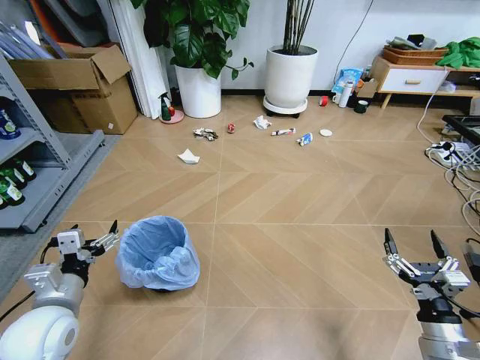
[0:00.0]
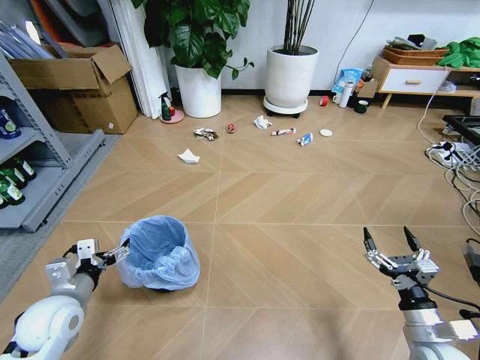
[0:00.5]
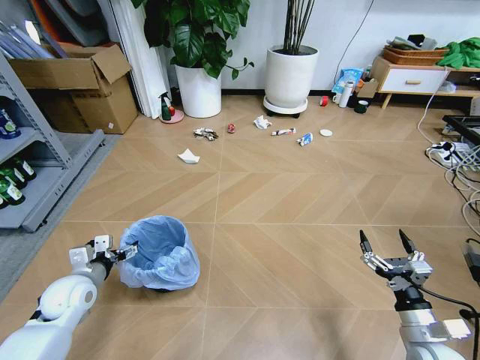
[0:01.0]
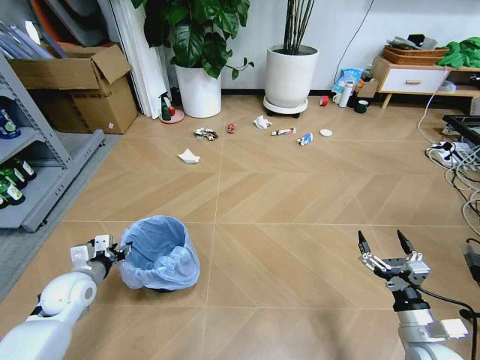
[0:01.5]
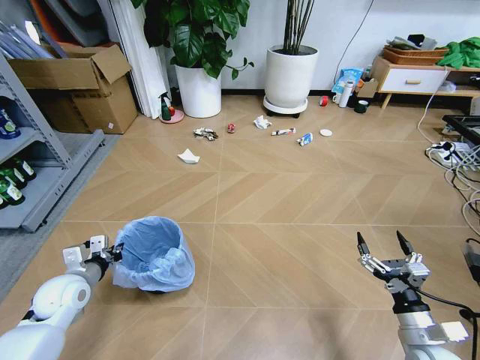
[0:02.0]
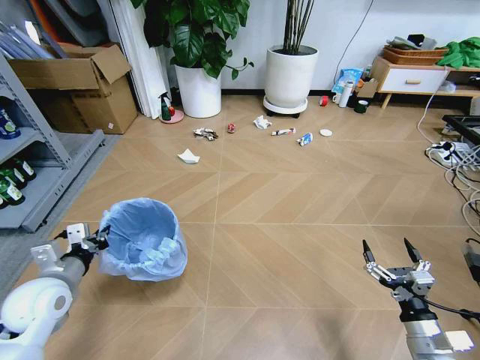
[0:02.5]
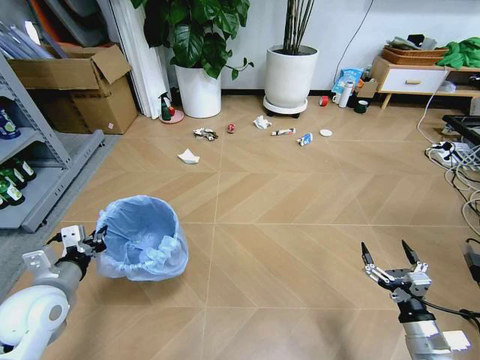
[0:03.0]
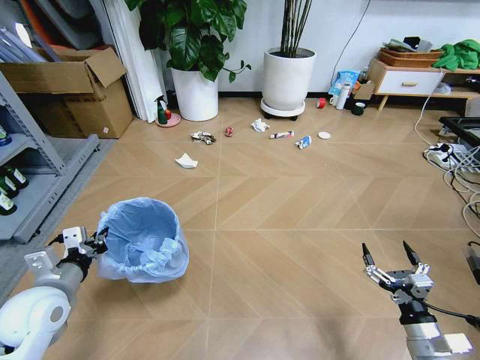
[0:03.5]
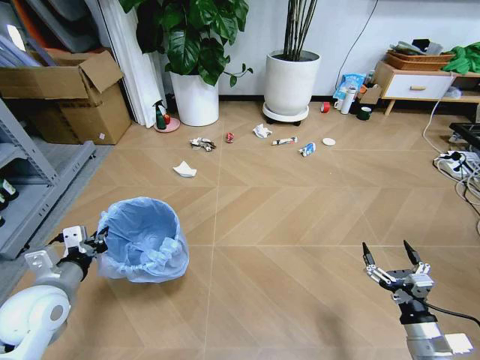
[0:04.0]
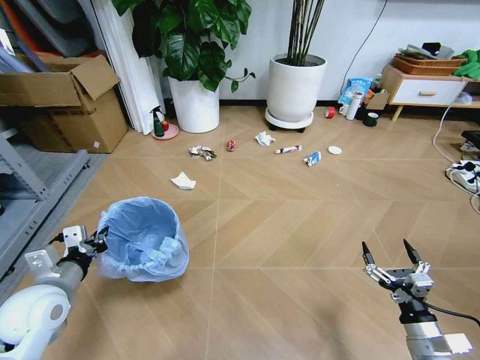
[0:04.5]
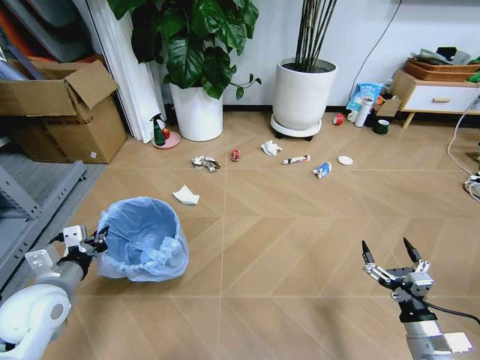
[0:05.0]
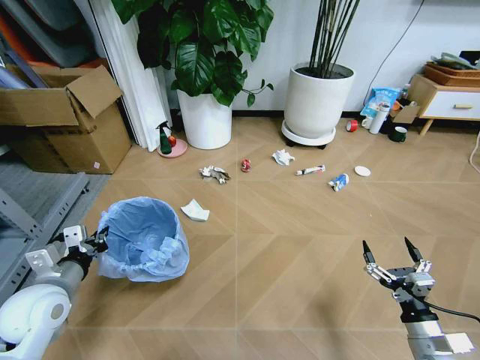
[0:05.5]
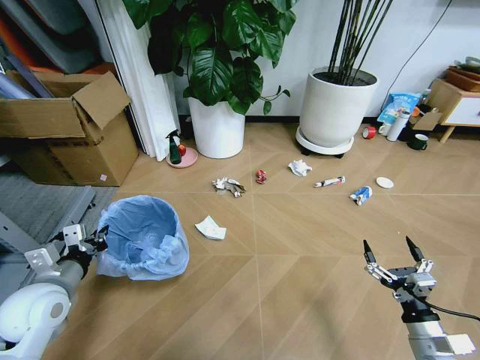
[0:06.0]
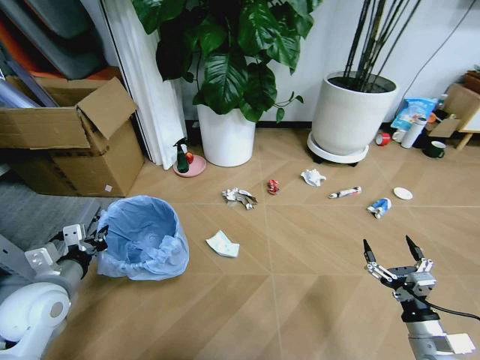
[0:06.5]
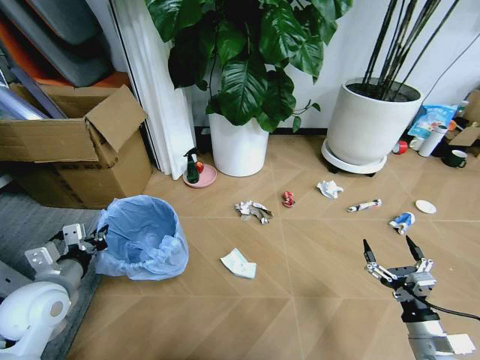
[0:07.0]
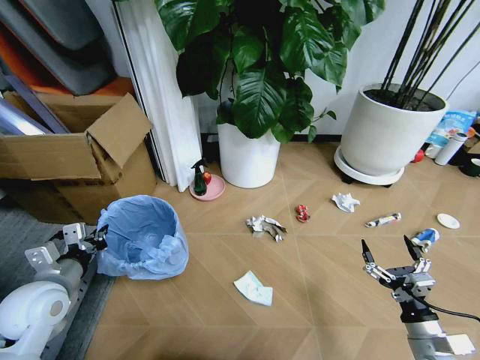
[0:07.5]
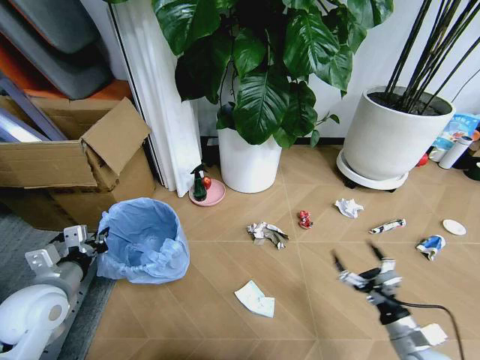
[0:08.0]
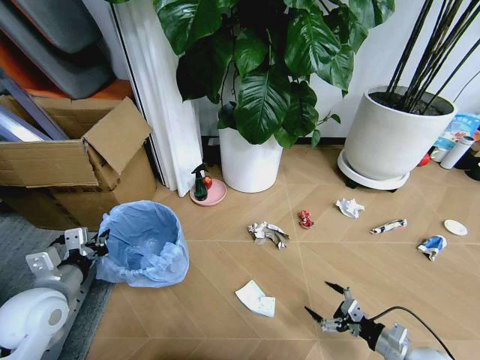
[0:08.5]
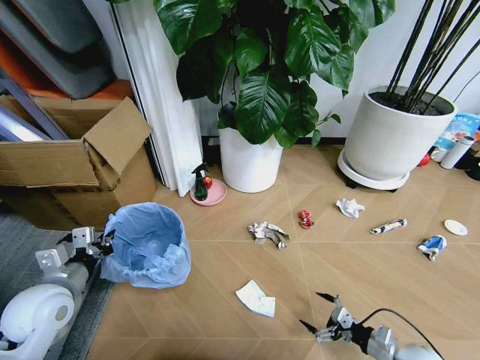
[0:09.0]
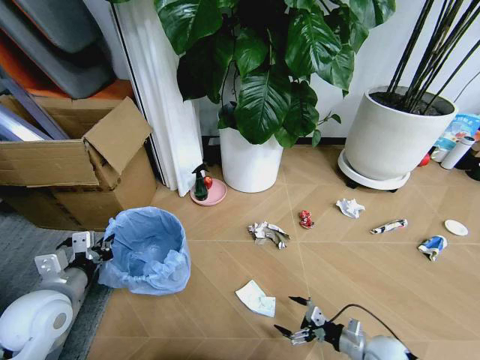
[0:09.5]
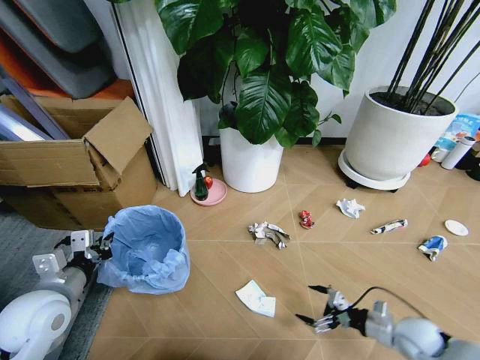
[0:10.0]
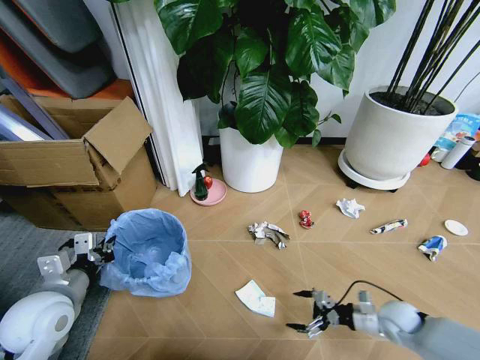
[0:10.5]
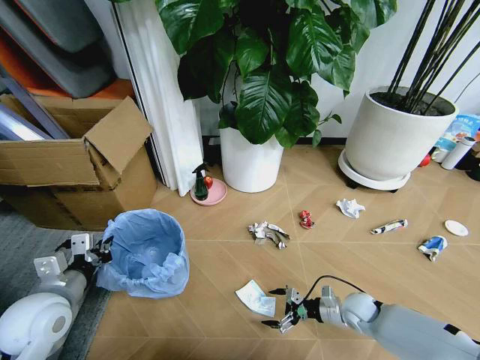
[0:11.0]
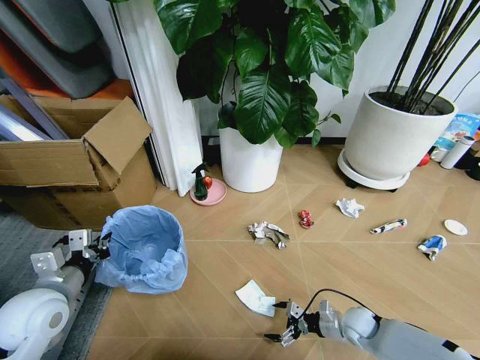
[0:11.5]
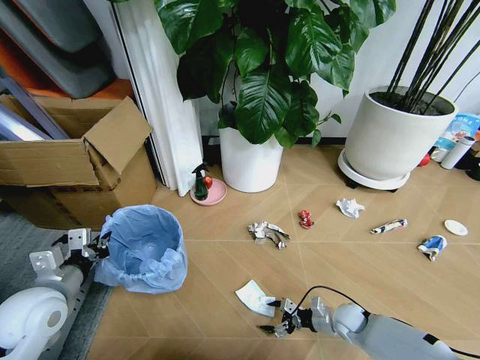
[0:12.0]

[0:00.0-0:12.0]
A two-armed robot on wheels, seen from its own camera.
Task of the whole recording: Pick up the trash bin and place the garbage on the floor into it.
0:02.0 to 0:04.0: The left gripper moves upward and backward, roughly 10 cm.
0:08.0 to 0:10.0: The right gripper moves forward, some 5 cm.
0:10.0 to 0:12.0: The right gripper moves downward, to the left and forward, roughly 15 cm.

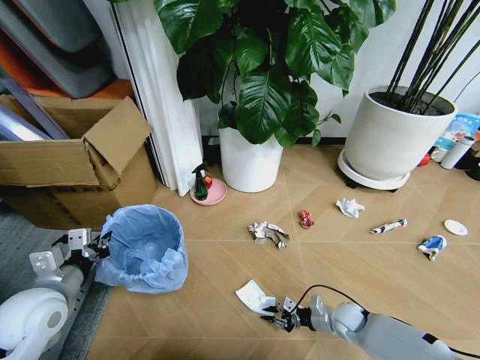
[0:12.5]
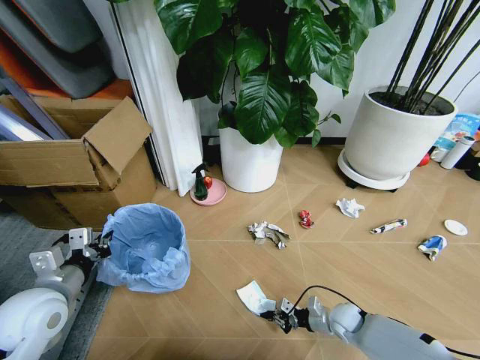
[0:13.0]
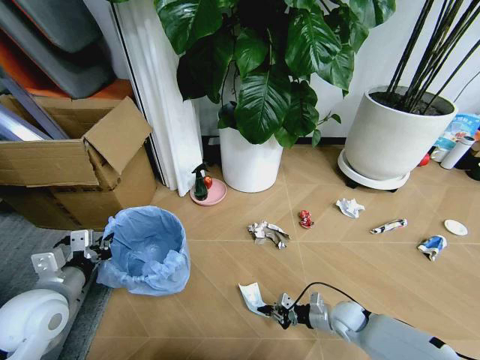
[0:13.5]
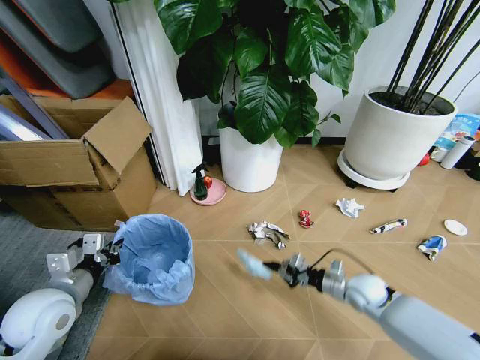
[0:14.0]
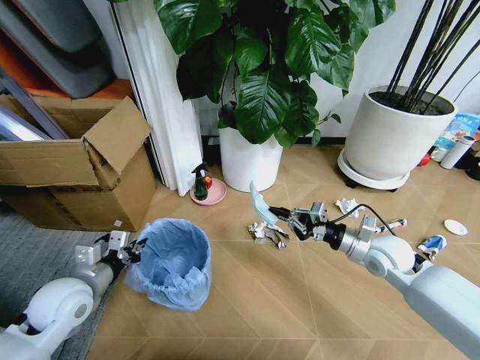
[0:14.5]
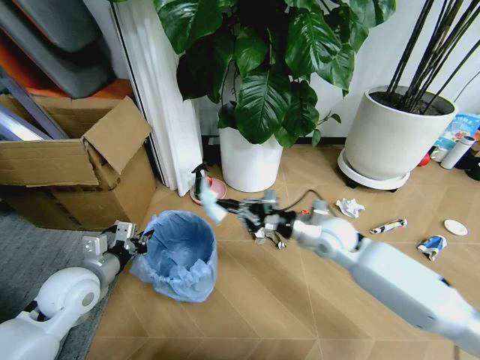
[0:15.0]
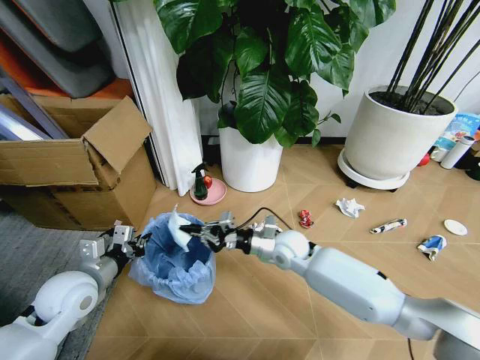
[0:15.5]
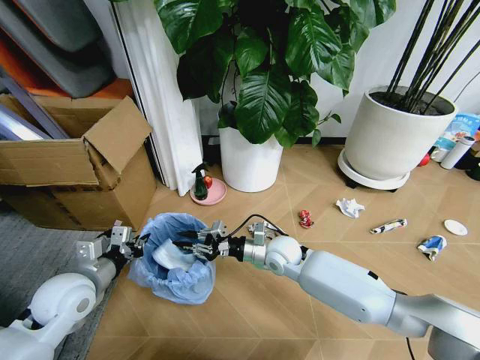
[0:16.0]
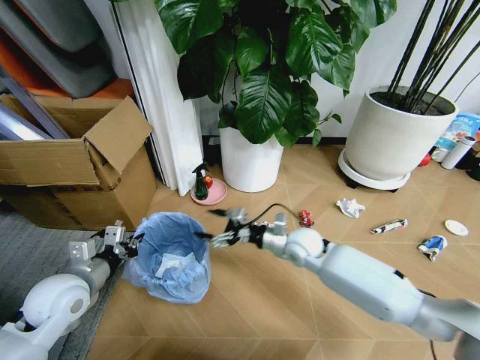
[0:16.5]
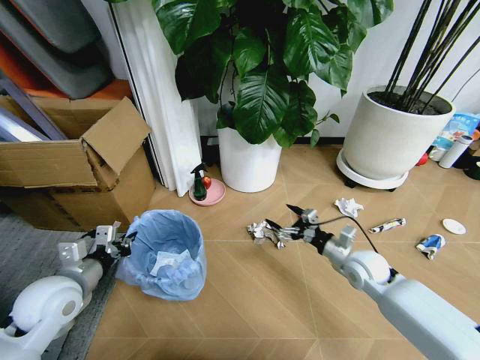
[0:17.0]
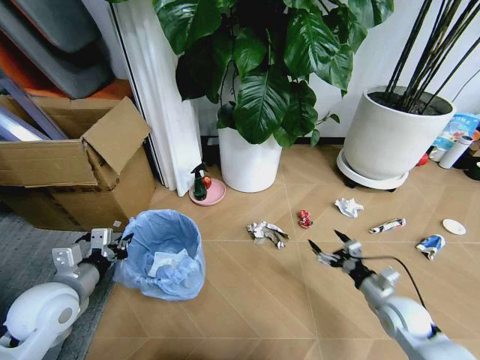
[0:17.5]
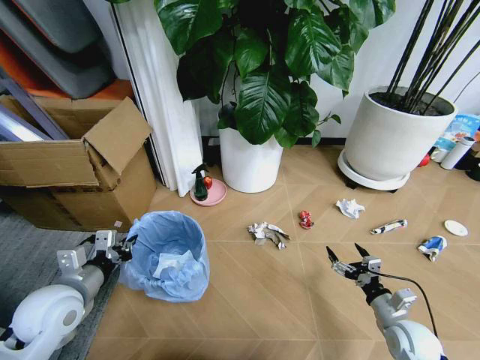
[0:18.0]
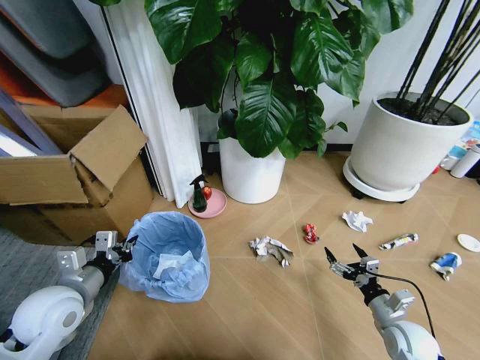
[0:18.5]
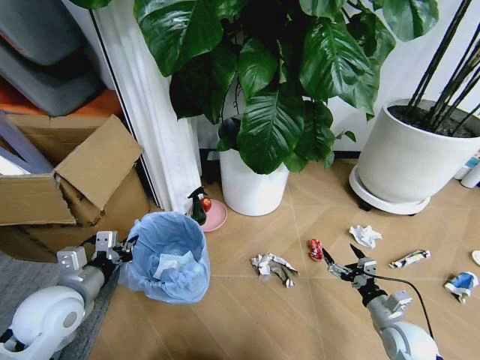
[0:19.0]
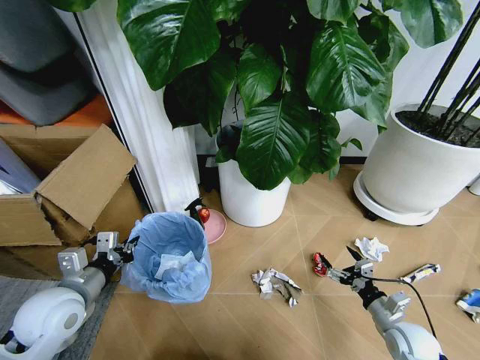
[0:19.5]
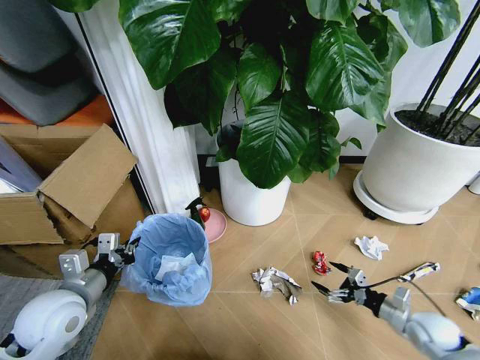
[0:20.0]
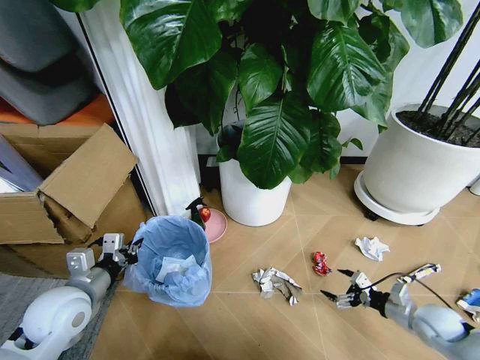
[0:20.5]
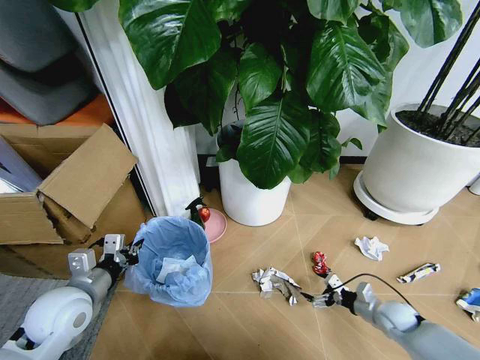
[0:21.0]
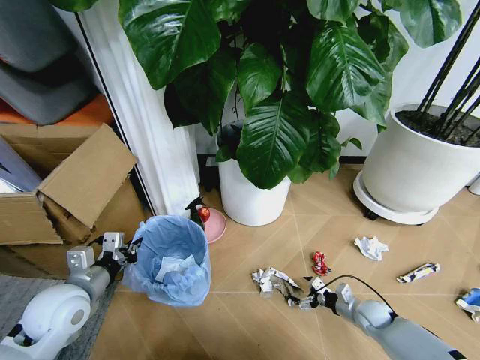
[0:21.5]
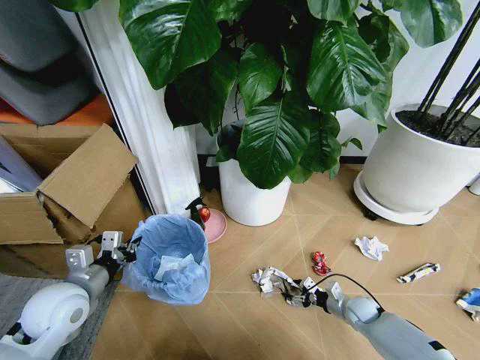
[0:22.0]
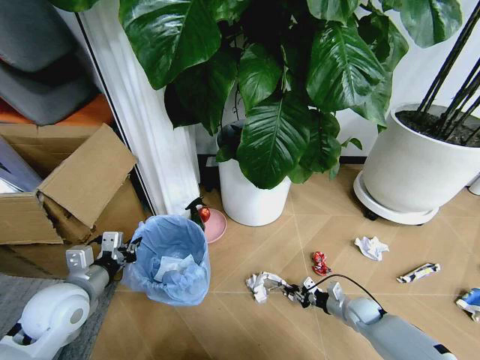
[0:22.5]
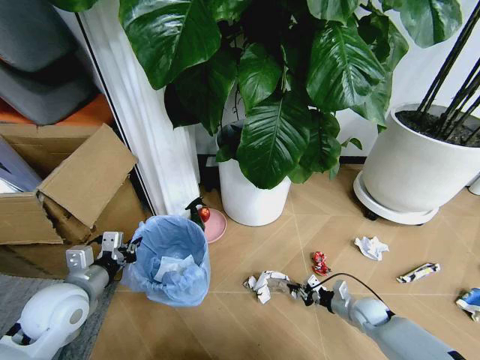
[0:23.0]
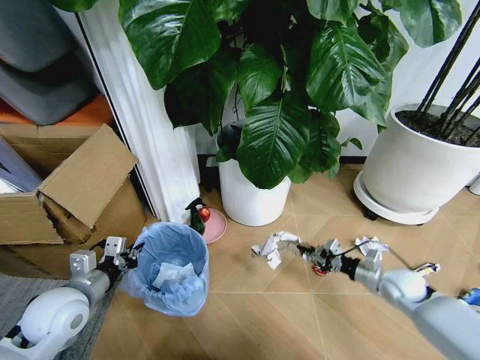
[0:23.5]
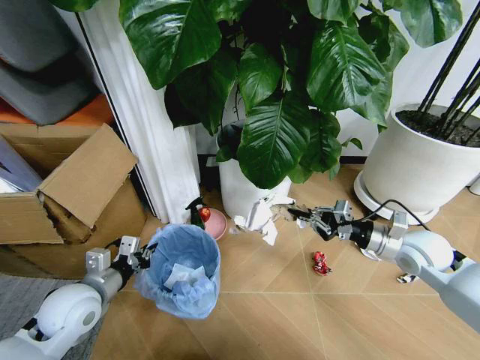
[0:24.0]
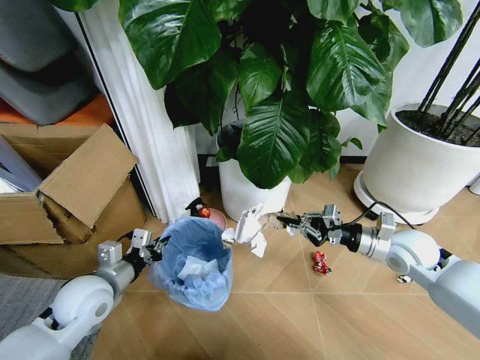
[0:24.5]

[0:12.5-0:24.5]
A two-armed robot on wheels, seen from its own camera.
Task of the whole recording: Pick up the trash bin and place the garbage on the floor into it.
0:12.5 to 0:14.5: The right gripper heads upward, covering approximately 25 cm.
0:14.5 to 0:16.5: The right gripper travels to the left by about 15 cm, and opens its fingers.
0:16.5 to 0:18.5: The right gripper goes roughly 30 cm to the right, backward and downward.
0:18.5 to 0:20.5: The right gripper shifts approximately 10 cm to the right.
0:20.5 to 0:22.5: The right gripper goes roughly 20 cm downward, to the left and forward, and closes up.
0:22.5 to 0:24.5: The right gripper is displaced upward by about 30 cm.

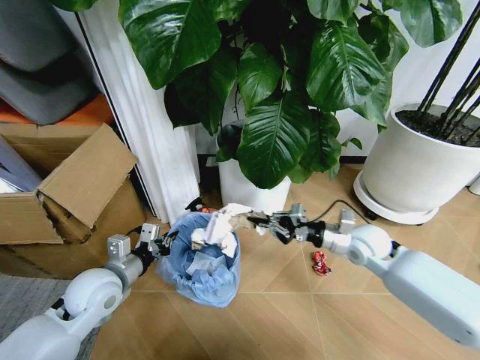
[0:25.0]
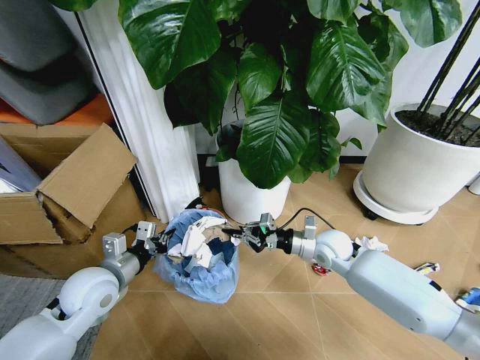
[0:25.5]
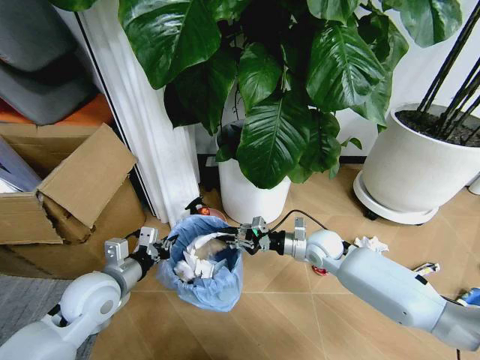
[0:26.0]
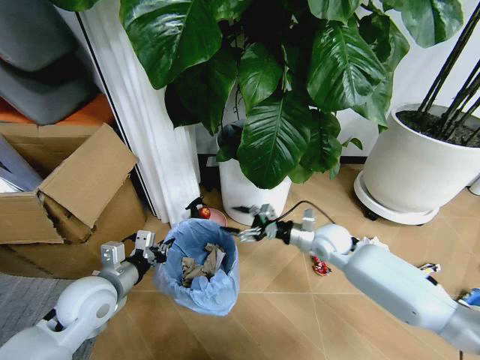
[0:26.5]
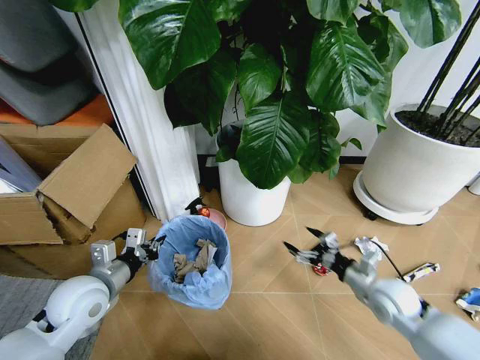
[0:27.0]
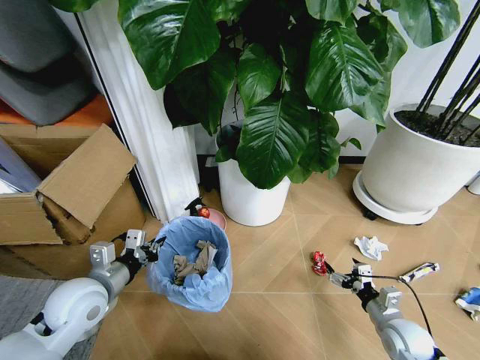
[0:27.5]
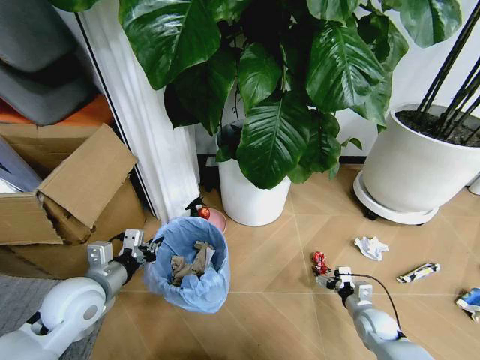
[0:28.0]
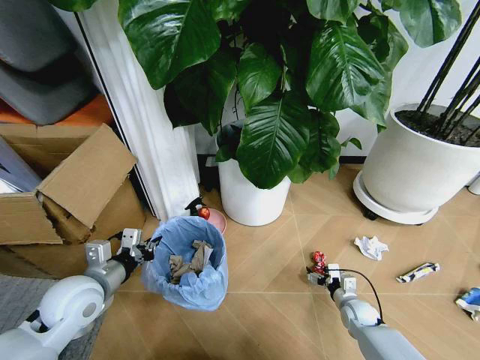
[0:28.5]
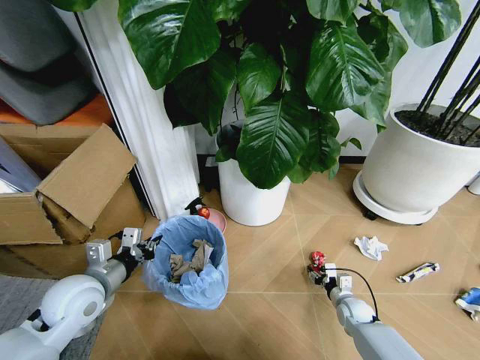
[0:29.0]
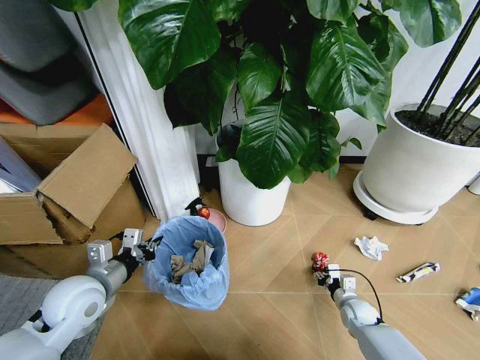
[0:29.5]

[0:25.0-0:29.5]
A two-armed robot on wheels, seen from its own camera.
Task of the whole recording: Pick up the trash bin and place the garbage on the floor into it.
0:25.0 to 0:27.0: The right gripper travels backward and downward by some 10 cm, and opens.
0:27.0 to 0:29.5: The right gripper heads downward, covering about 20 cm, and closes its fingers.
